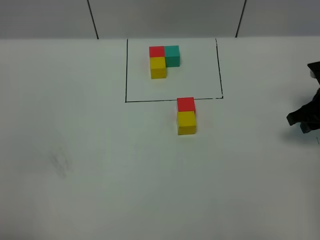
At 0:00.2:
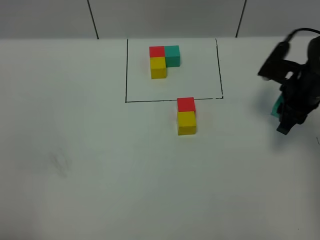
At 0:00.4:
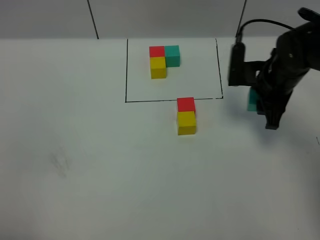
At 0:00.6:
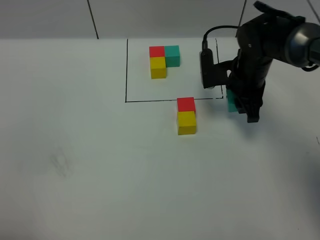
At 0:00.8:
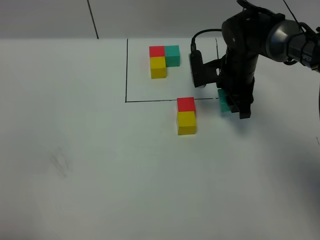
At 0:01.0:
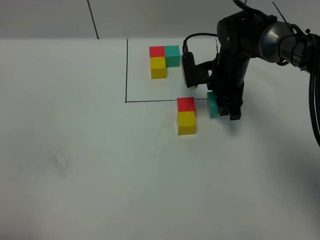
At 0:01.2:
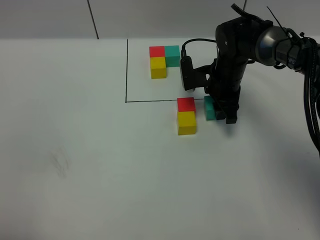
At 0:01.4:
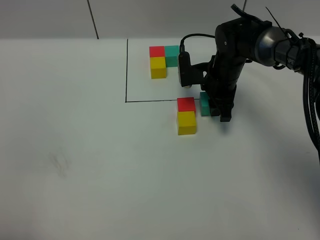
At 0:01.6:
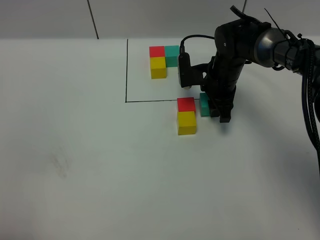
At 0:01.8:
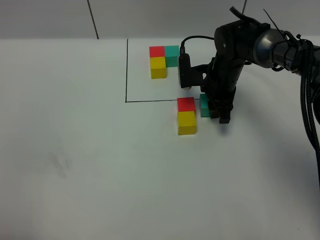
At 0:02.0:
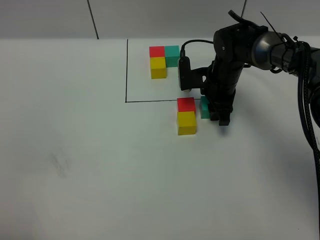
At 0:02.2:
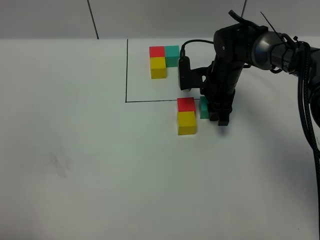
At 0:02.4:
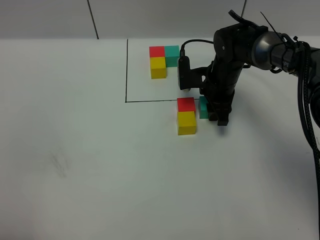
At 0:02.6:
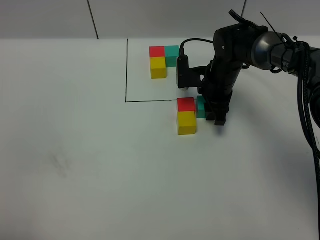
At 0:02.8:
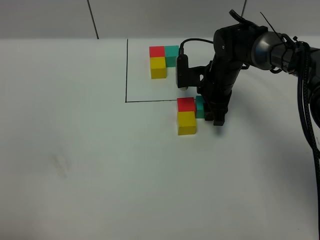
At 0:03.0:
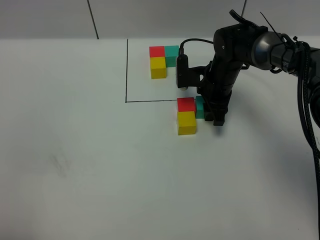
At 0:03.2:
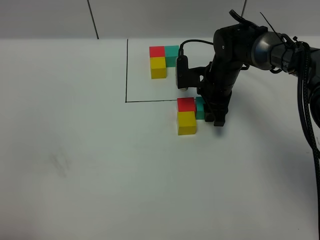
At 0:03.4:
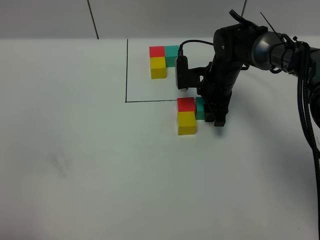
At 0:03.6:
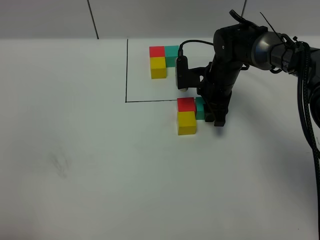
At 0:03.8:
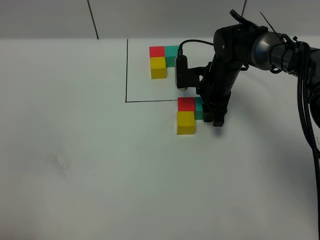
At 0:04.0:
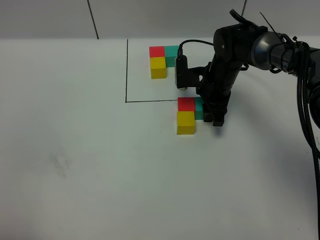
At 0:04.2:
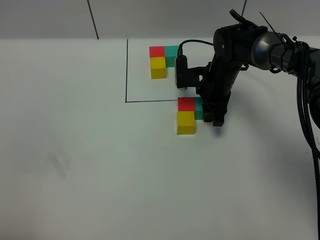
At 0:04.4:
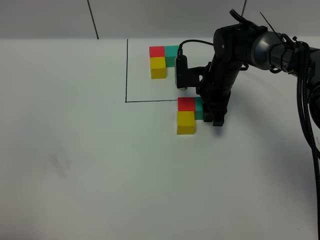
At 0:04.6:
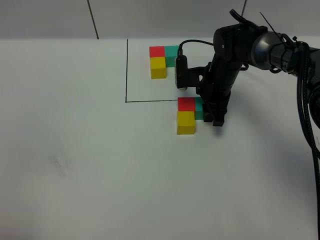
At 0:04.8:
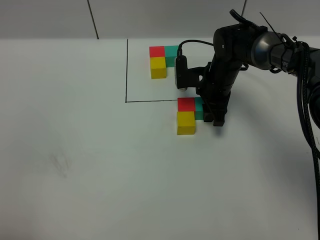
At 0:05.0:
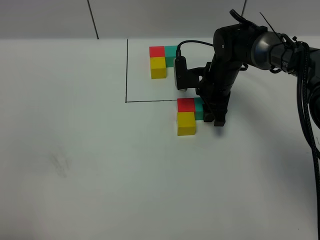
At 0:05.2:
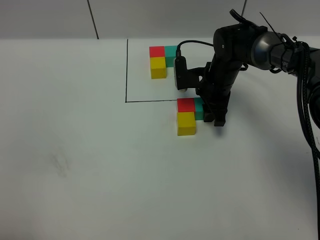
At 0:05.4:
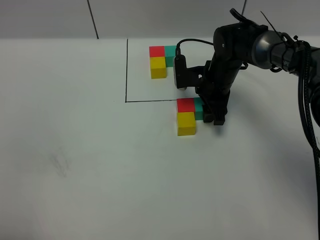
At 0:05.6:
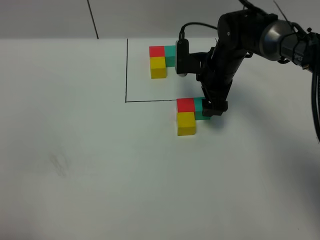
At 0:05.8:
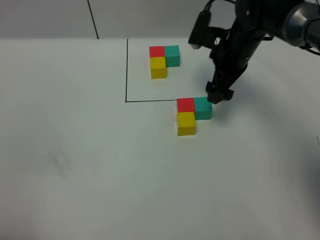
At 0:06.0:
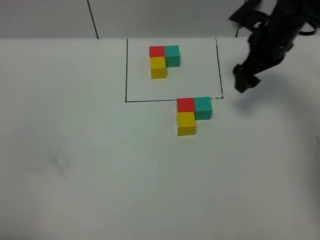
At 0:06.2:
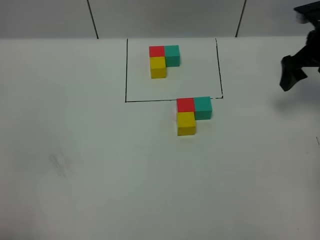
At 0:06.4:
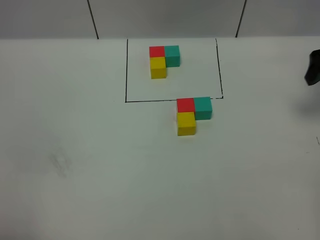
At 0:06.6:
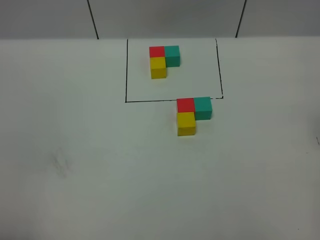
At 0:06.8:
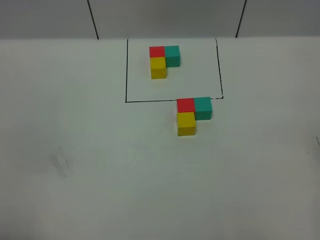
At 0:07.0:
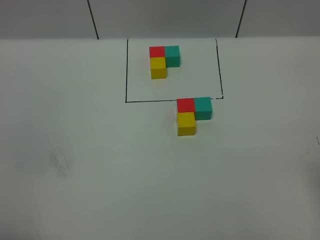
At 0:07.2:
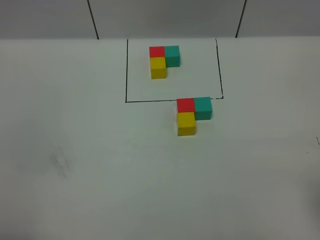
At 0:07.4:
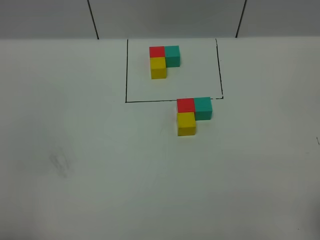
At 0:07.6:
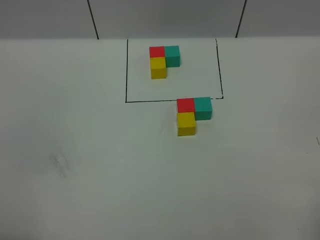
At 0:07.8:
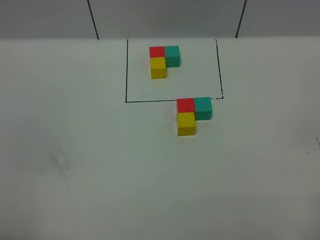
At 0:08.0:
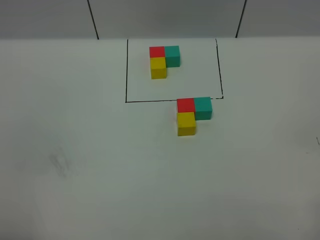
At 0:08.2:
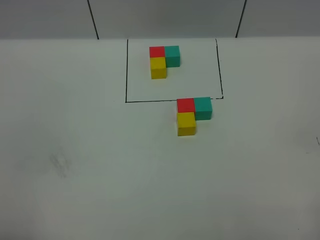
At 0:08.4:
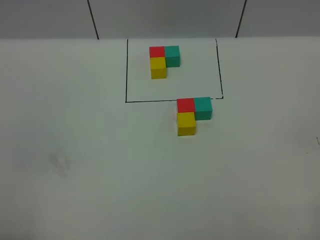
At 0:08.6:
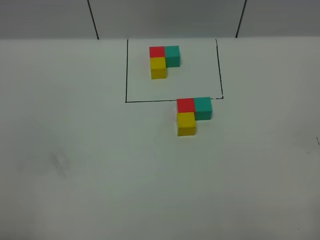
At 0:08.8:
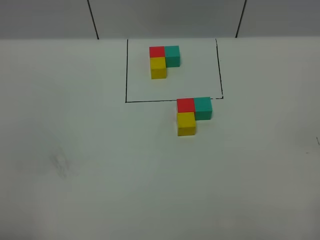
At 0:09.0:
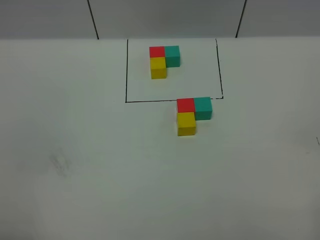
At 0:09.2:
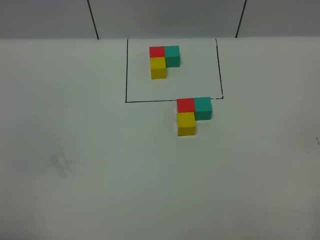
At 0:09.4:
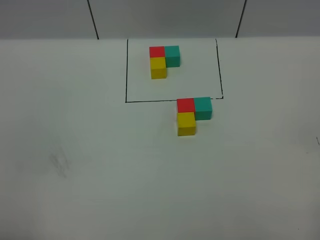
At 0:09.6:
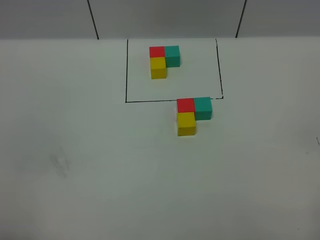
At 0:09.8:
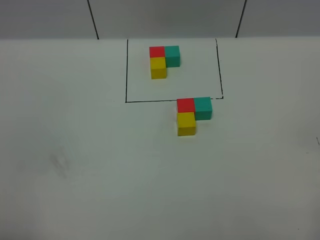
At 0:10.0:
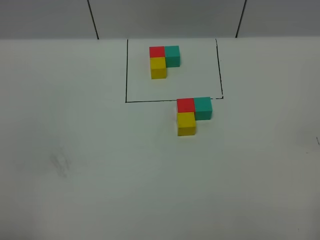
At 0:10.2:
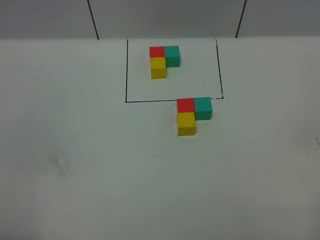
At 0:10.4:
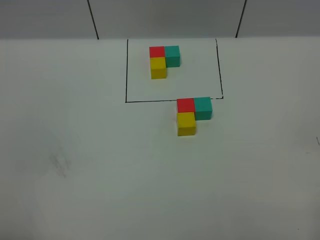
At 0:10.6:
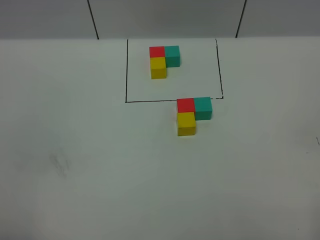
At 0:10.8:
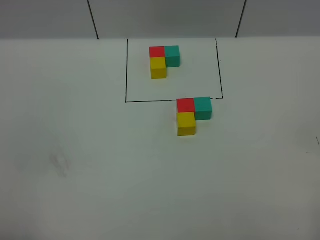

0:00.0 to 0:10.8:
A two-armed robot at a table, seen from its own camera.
Task of the whole recording: According to the building block template in front, assemble the scattered blocks together.
Step, 0:00.0 to 0:05.4: Put the green build block on the right of the red build block.
0:00.0 to 0:01.6: The right gripper is displaced to the left and forward by approximately 20 cm.
0:01.6 to 0:03.0: Both grippers stay put.
0:03.0 to 0:04.6: Neither gripper changes place.
0:04.6 to 0:06.2: The right gripper goes approximately 25 cm to the right and upward, and opens up.
0:06.2 to 0:07.8: The right gripper shifts about 40 cm backward.
0:09.2 to 0:10.8: Both grippers stay put.

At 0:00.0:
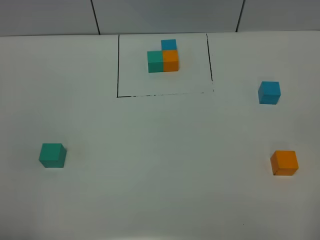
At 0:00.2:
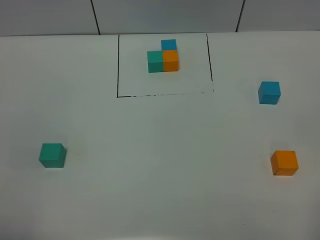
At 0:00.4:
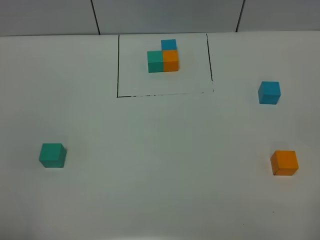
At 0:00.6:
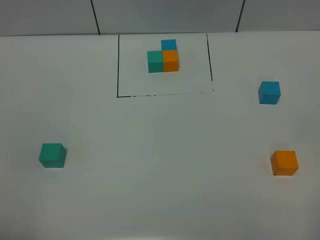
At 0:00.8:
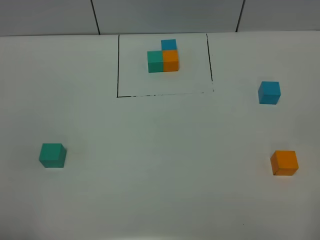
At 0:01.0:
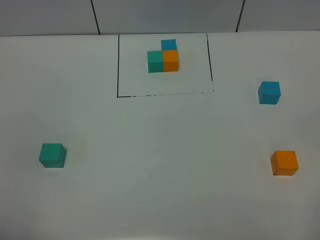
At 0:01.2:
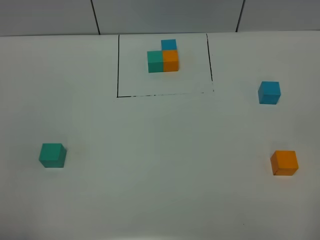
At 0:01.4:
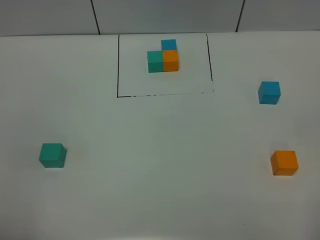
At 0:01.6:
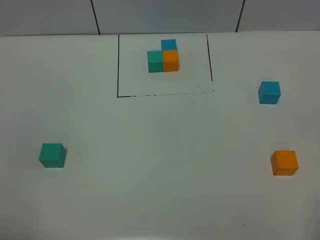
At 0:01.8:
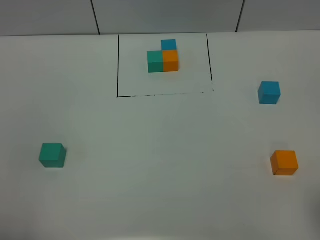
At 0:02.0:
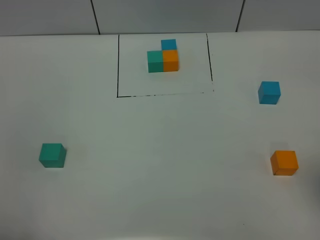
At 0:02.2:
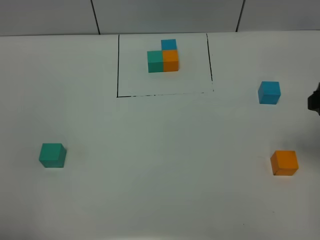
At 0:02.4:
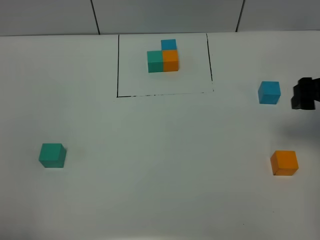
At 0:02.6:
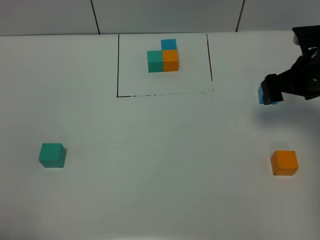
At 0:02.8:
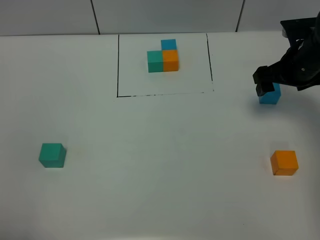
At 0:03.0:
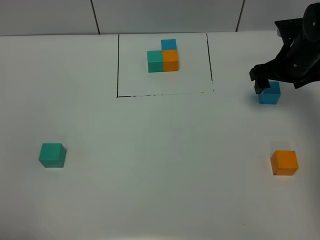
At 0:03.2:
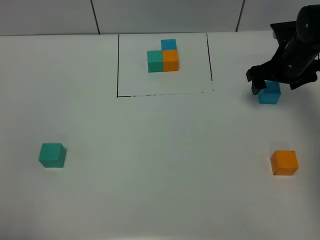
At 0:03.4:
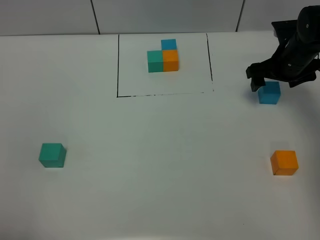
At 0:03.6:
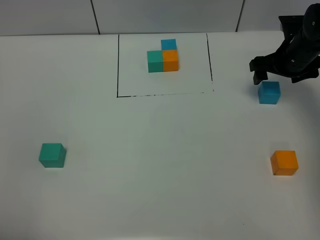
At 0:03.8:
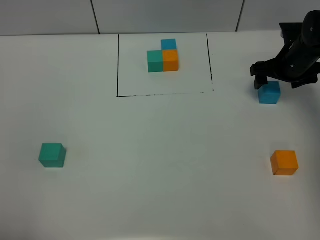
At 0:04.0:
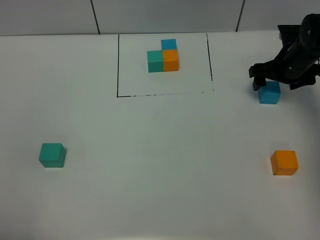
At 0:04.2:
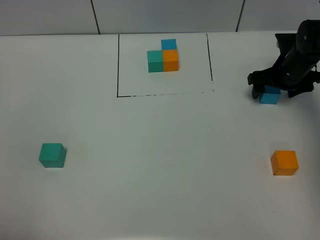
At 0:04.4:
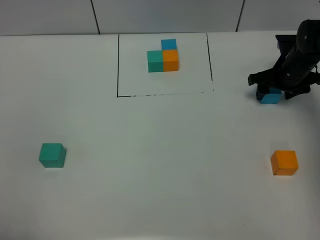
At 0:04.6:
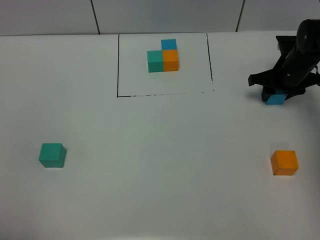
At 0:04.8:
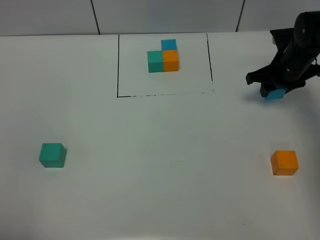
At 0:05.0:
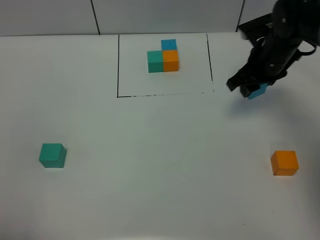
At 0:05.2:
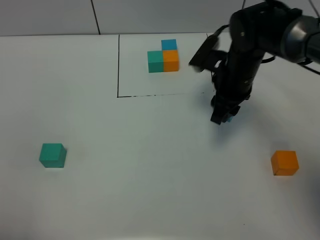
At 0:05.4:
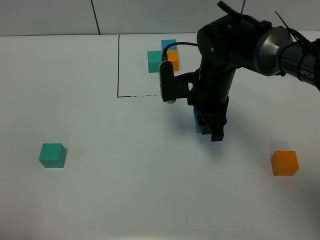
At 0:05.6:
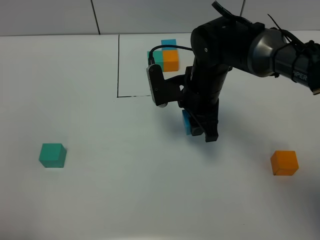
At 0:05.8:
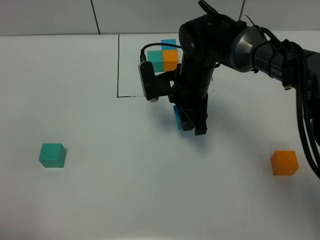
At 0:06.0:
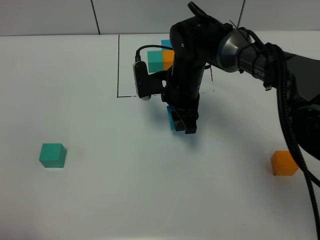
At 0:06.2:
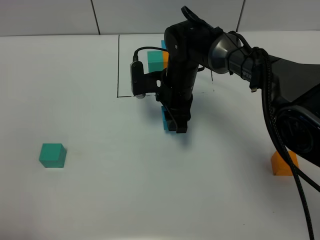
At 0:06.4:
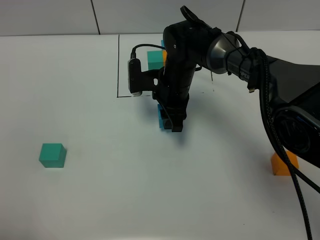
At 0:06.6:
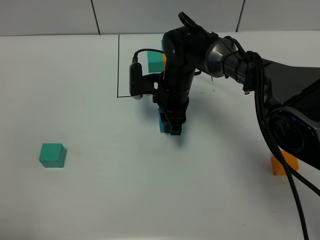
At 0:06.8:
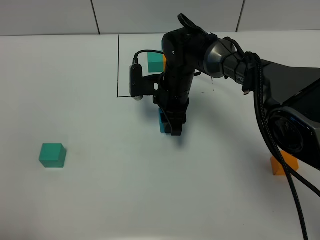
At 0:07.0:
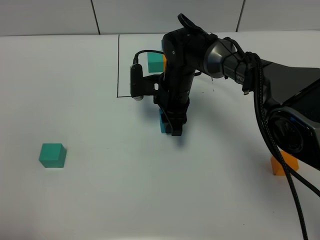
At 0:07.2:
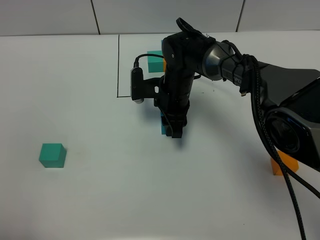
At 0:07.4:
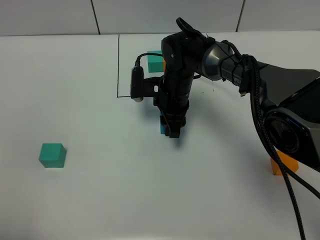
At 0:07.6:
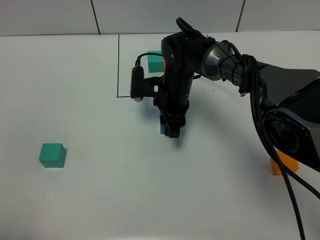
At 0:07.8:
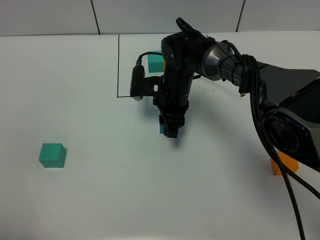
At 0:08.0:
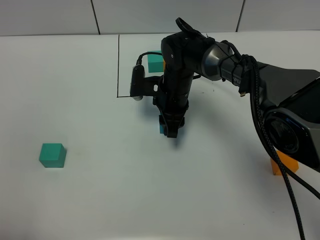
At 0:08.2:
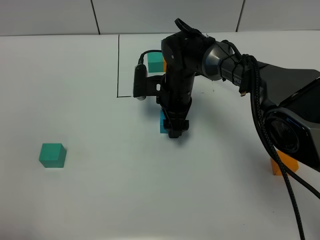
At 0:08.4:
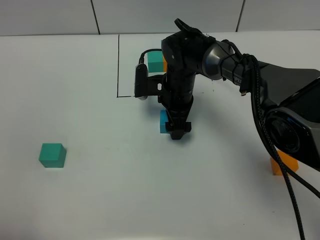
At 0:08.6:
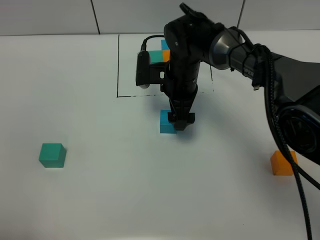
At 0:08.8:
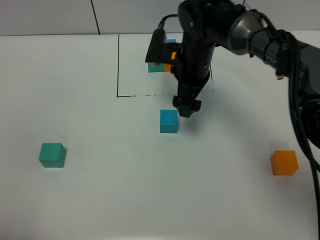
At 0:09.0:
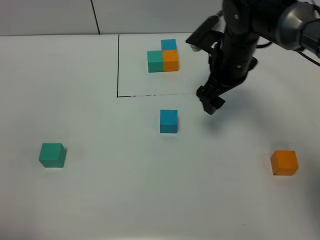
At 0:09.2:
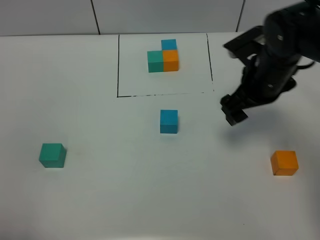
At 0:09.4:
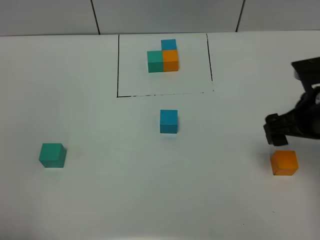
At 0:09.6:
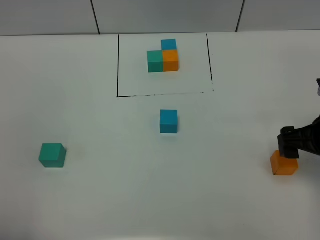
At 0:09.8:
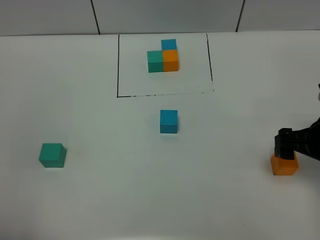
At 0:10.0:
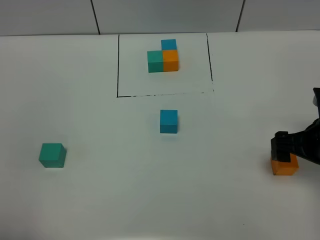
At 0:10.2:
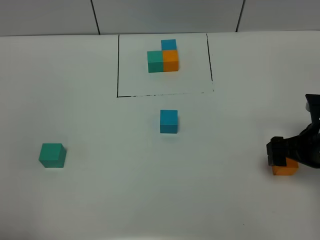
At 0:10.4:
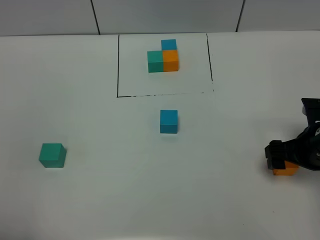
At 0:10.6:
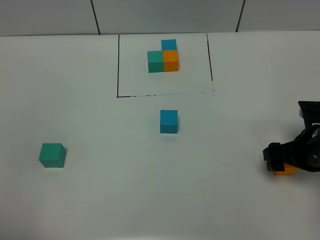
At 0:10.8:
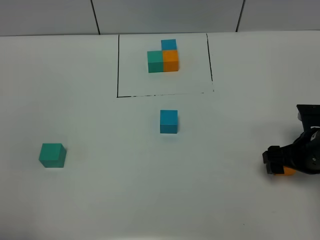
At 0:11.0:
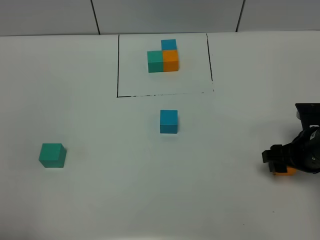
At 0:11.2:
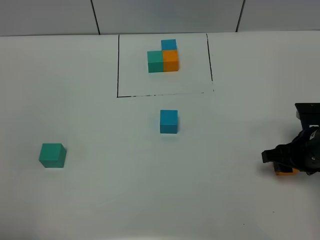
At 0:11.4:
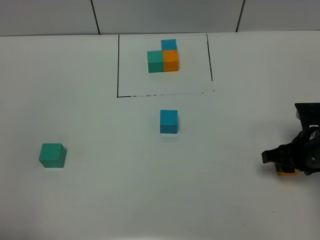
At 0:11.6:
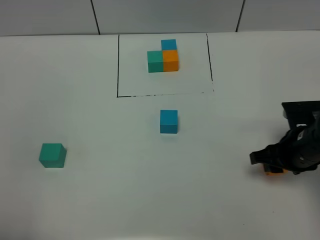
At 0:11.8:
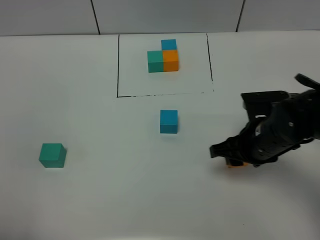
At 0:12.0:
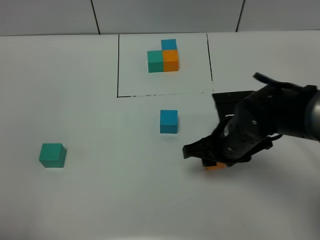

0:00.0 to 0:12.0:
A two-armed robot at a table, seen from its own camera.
Task of the whole recording: According to the building block template in front, assemble the scattered blocks together.
Step, 0:00.0 to 0:07.6: Put the blue build block in the center of the table.
0:00.0 to 0:01.6: Both grippers stay about where they are.
0:01.6 to 0:03.0: The right gripper moves forward, roughly 40 cm.
0:03.0 to 0:04.4: The right gripper moves downward, roughly 5 cm, and closes its fingers.
0:04.4 to 0:06.0: The right gripper goes roughly 25 cm to the left.
0:06.0 to 0:07.6: There are only small adjustments of the grippers.
0:07.6 to 0:09.0: The right gripper shifts approximately 15 cm to the right and upward, and opens its fingers.
0:09.0 to 0:10.4: The right gripper moves backward, to the right and downward, about 20 cm.
0:10.4 to 0:12.0: The right gripper shifts some 15 cm to the left, and closes up.
